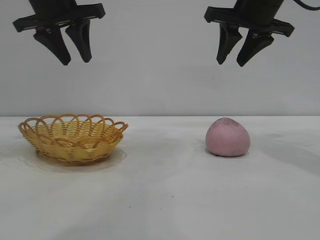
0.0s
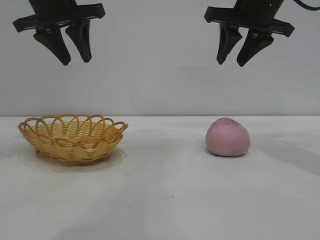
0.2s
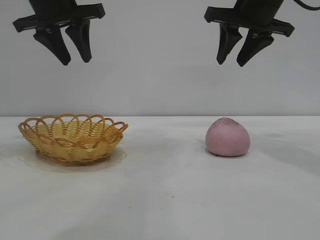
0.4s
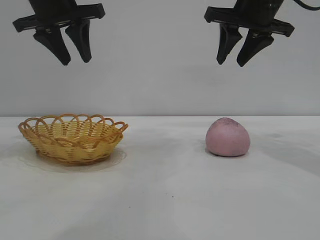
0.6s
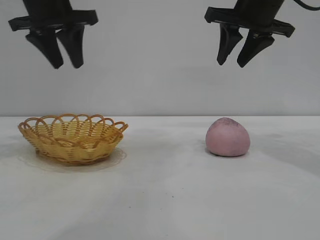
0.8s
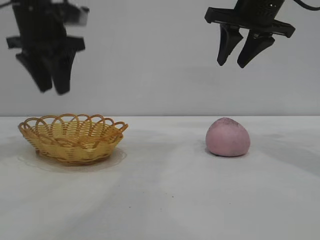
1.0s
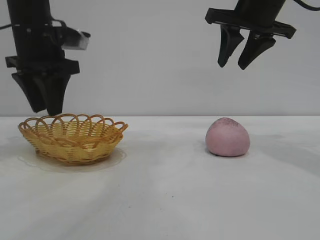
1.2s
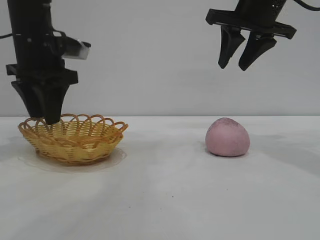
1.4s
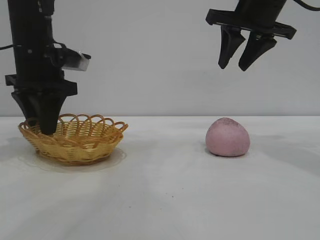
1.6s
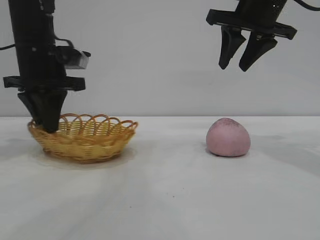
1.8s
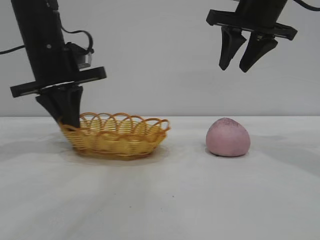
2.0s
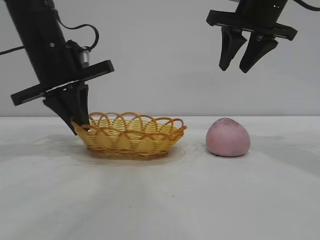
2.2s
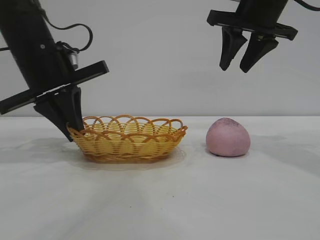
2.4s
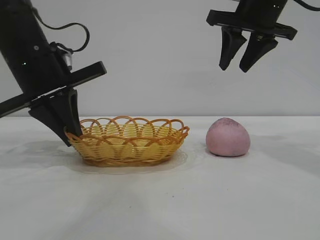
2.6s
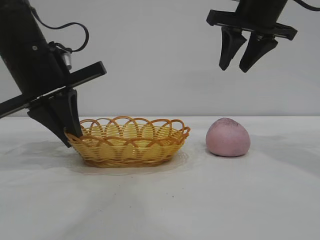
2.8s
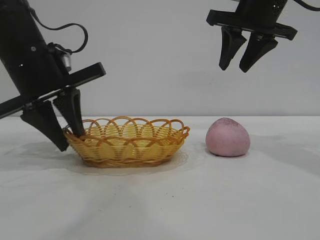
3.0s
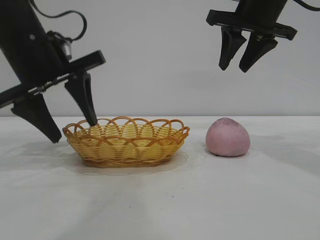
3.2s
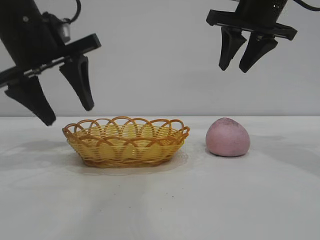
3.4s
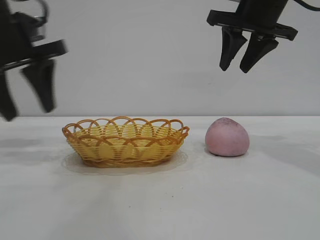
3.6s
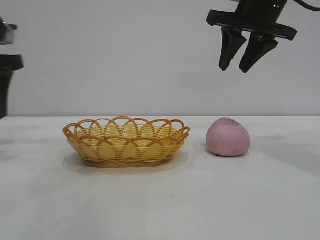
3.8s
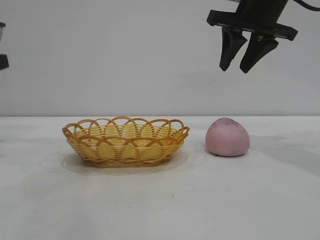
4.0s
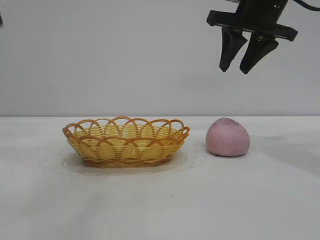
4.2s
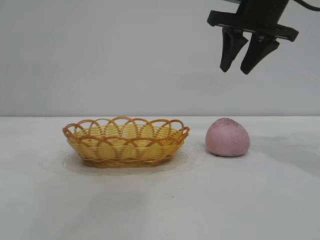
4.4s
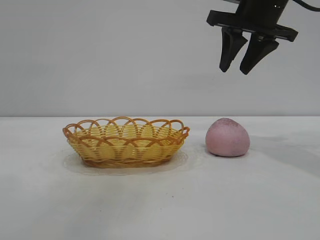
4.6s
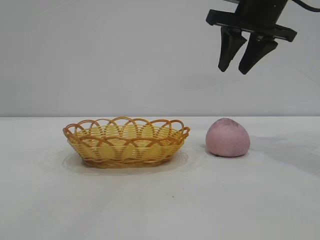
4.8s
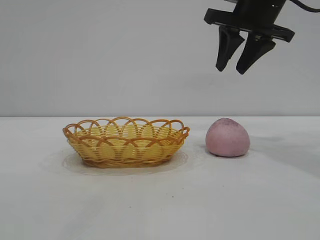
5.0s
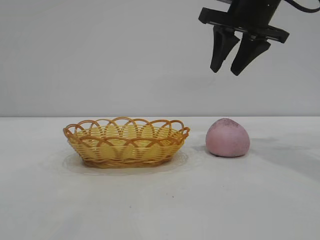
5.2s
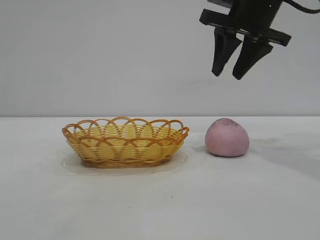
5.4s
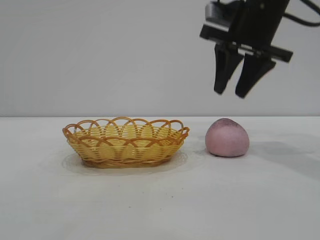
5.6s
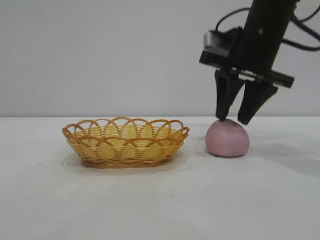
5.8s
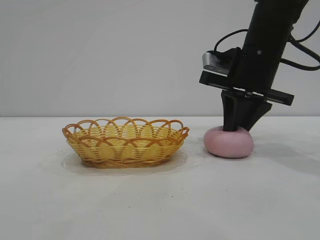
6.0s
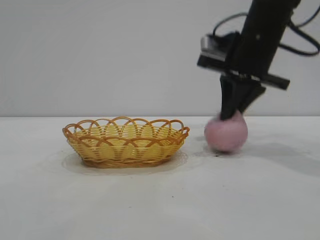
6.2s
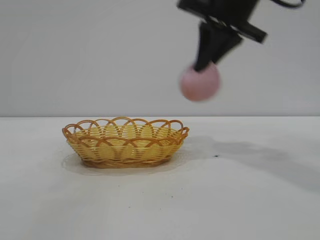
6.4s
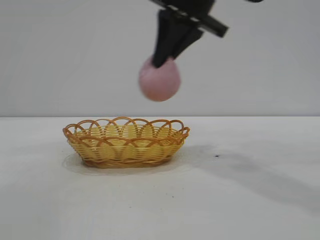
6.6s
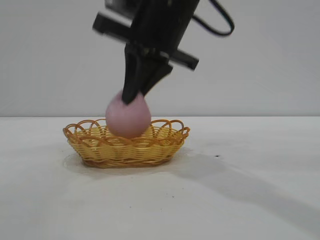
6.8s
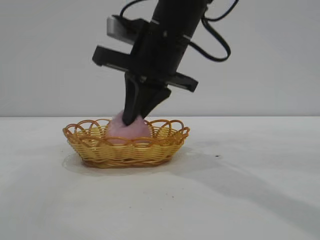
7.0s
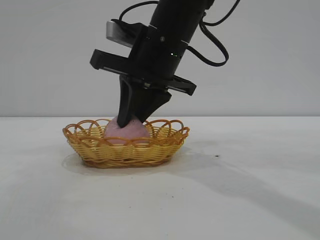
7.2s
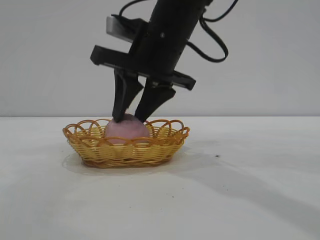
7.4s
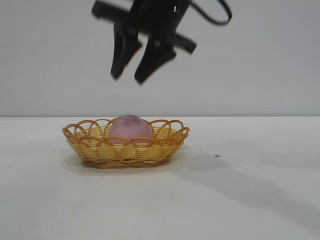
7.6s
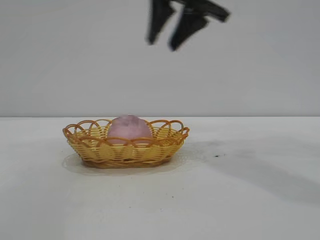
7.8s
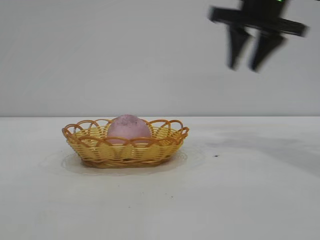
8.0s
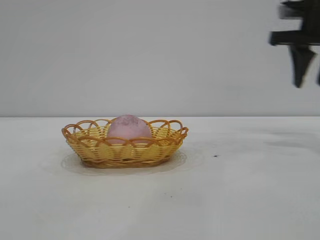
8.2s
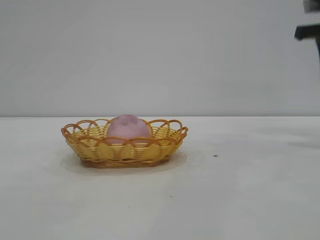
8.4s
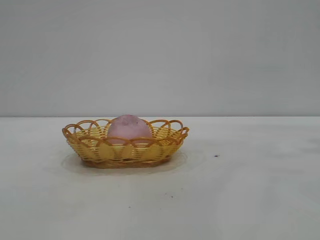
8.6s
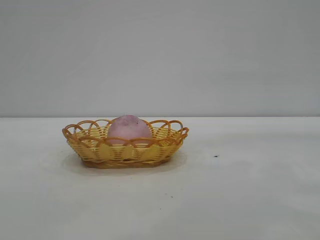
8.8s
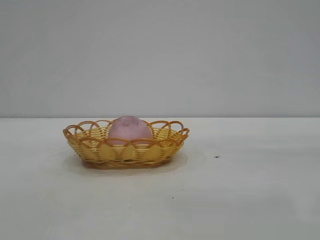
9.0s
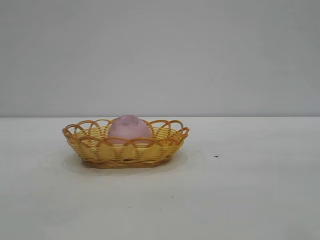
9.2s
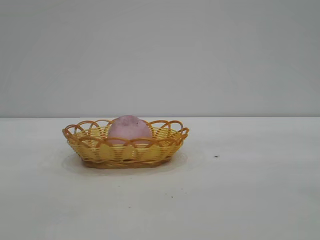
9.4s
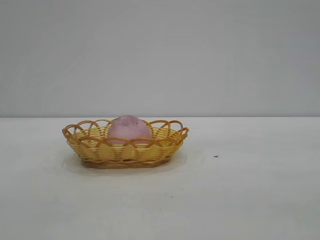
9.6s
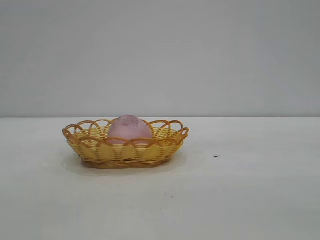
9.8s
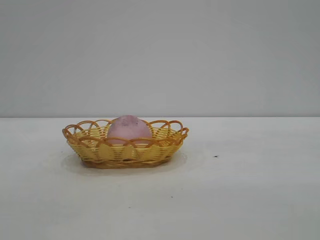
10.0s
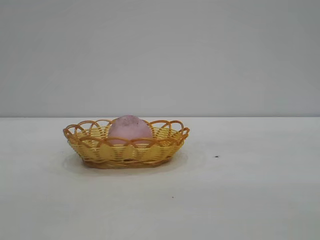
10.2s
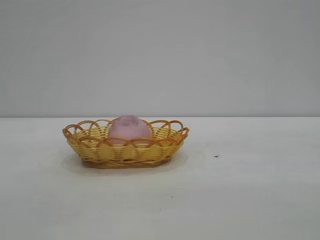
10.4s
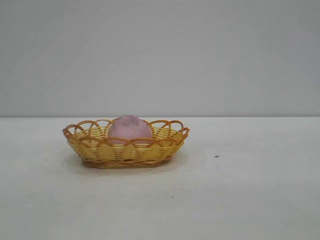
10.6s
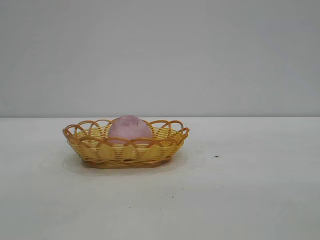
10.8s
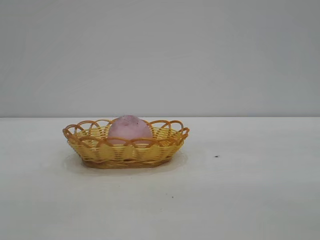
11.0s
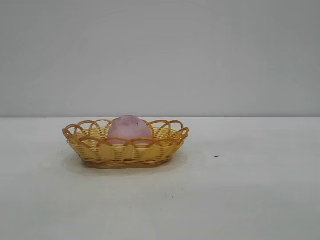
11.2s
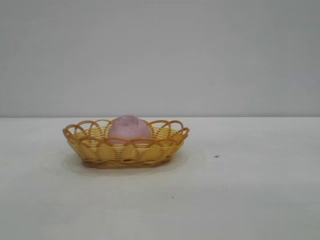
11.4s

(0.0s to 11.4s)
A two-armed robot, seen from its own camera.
Task of the whole recording: pick up the peach and put it into the basket.
Step, 0.0s - 3.4s: Move the basket to the center of view.
Step, 3.8s - 6.2s: Pick up the peach.
Step, 6.4s - 7.6s: place the peach into the basket.

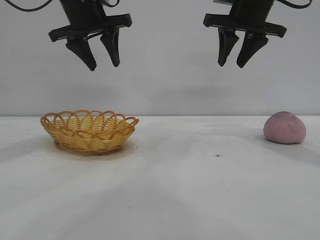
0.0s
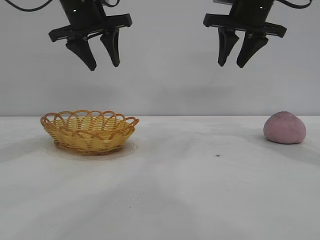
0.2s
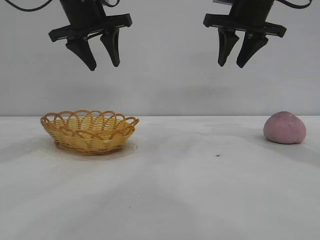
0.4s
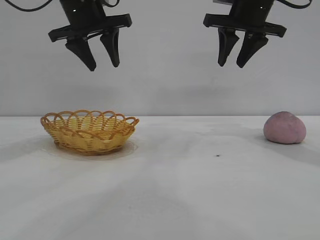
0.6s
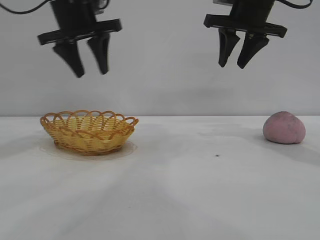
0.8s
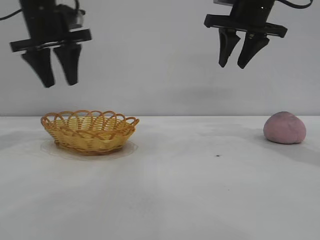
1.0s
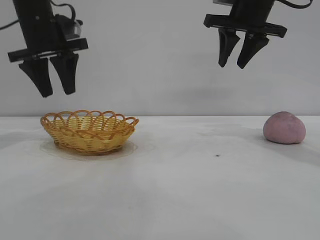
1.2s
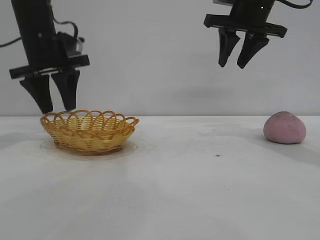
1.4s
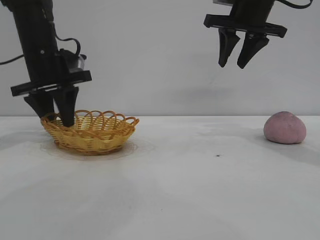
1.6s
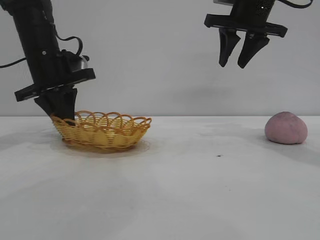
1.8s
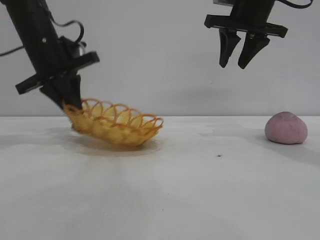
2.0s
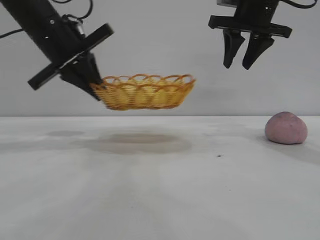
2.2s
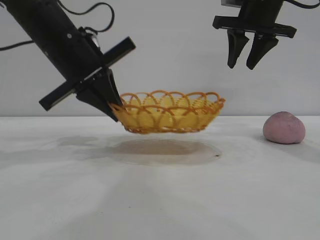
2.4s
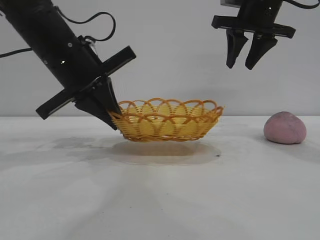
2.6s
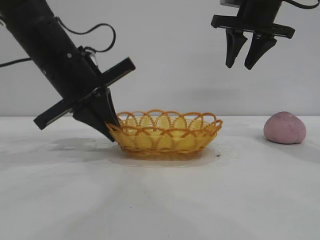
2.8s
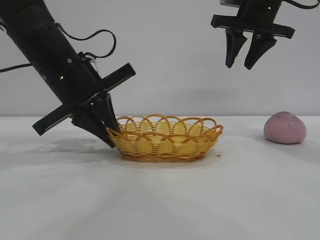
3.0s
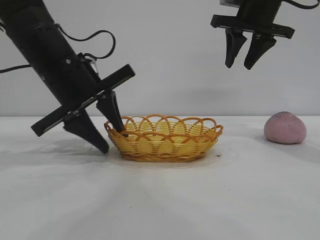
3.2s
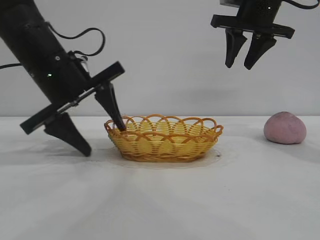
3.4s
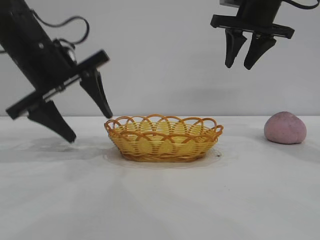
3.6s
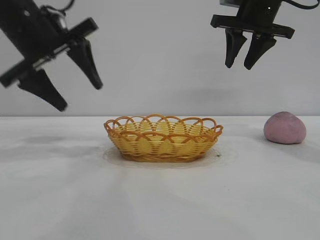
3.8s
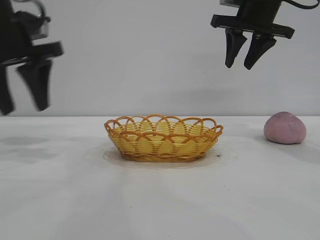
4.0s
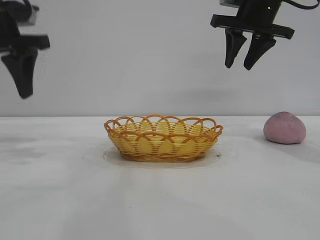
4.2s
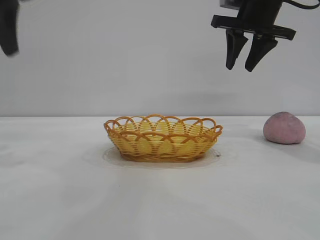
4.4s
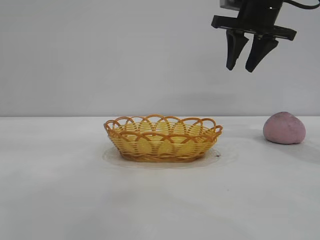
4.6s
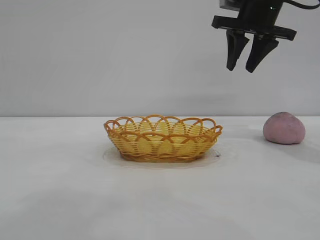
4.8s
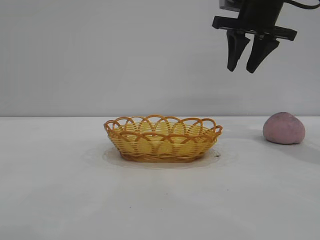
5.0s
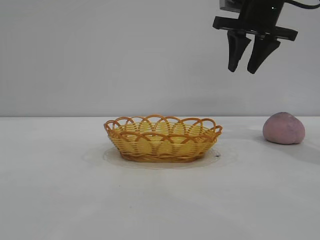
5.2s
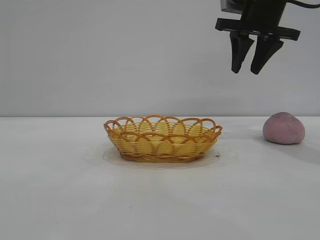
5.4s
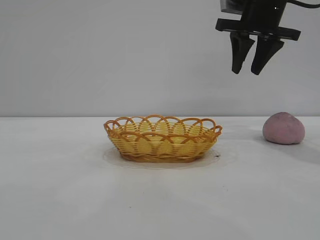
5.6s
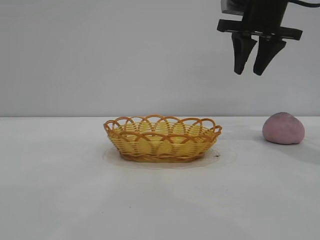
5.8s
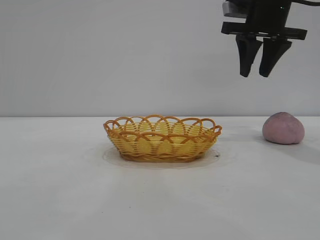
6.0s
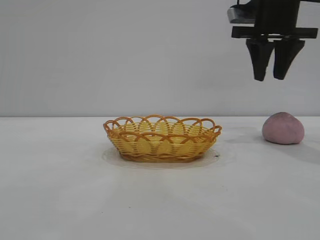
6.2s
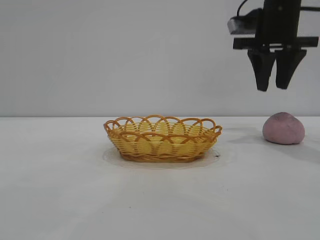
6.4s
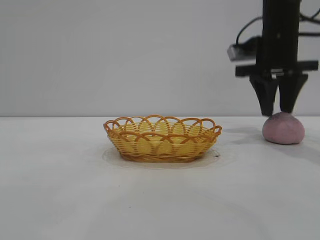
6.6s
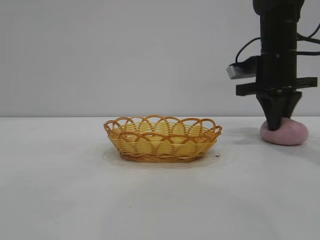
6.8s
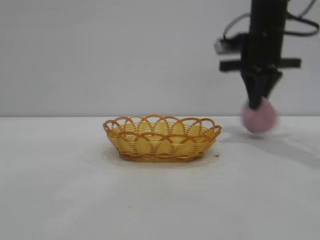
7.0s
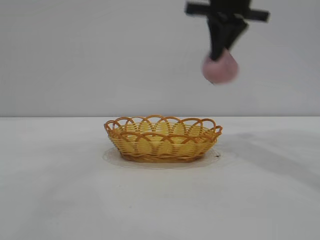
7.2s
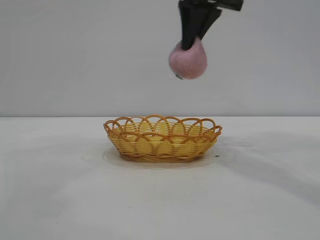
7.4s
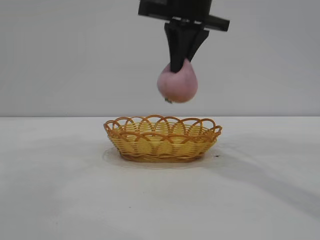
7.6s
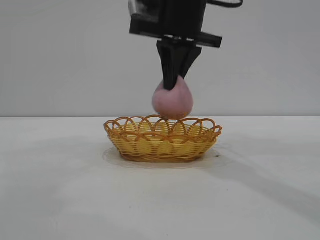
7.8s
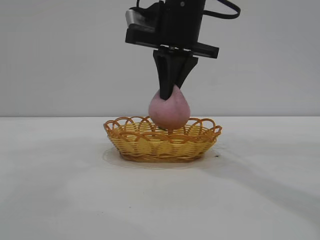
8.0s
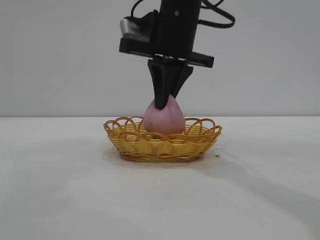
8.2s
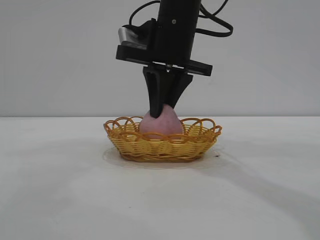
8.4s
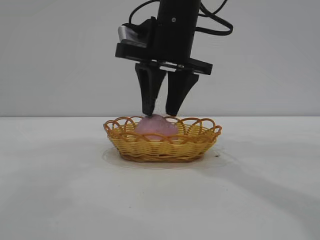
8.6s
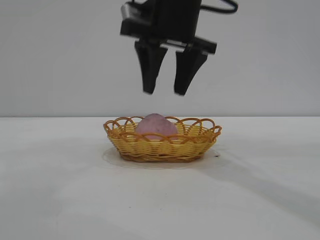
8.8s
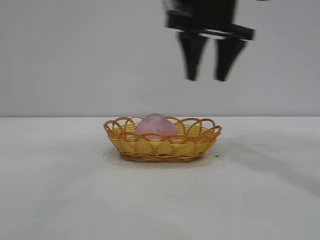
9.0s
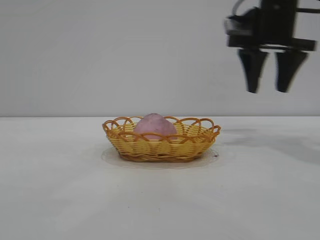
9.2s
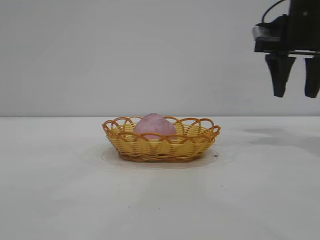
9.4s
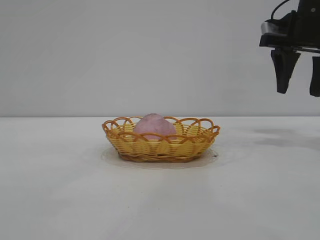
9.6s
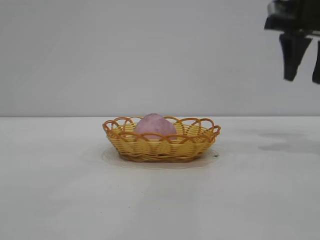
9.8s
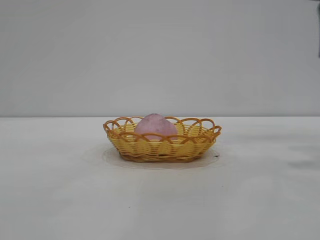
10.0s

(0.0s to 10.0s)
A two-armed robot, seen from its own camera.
Task of the whole recording: pick up the peach and put it into the basket.
Step, 0.0s - 3.8s: Move the basket to the center of view.
Step, 4.0s - 7.0s: Pick up the peach.
Step, 7.2s - 8.8s: place the peach into the basket.
